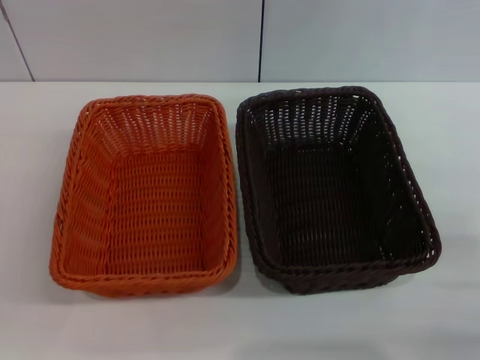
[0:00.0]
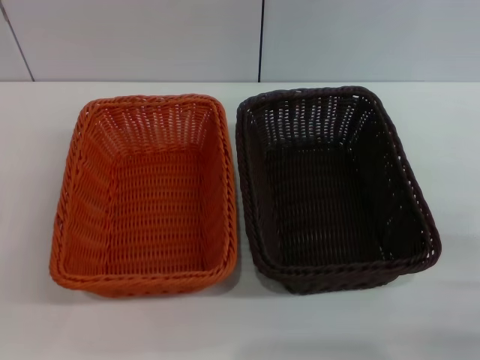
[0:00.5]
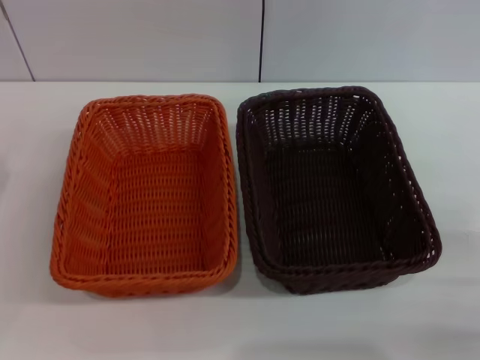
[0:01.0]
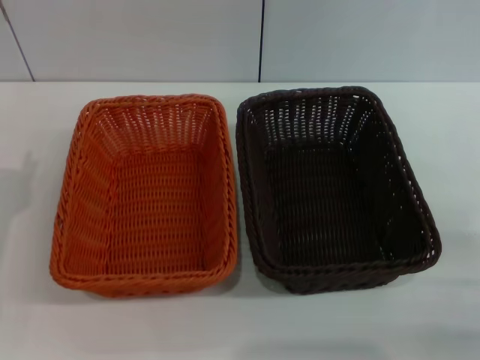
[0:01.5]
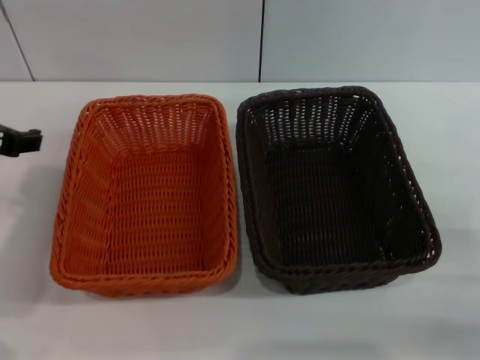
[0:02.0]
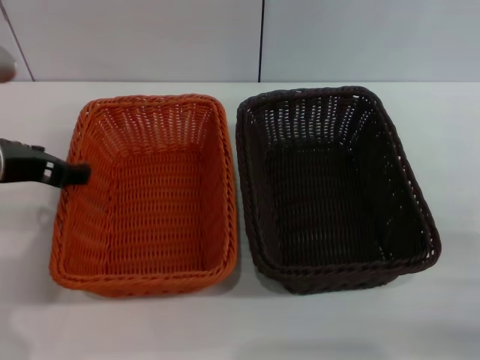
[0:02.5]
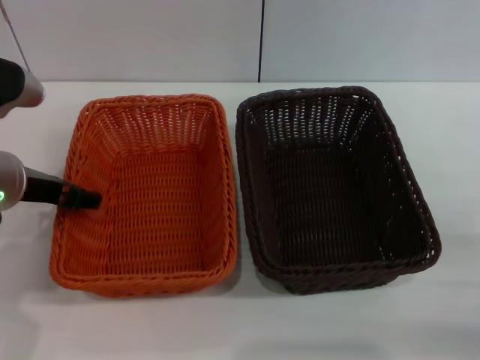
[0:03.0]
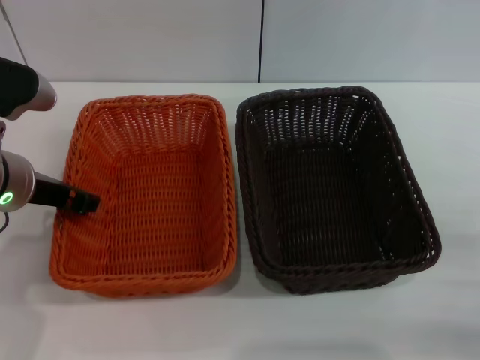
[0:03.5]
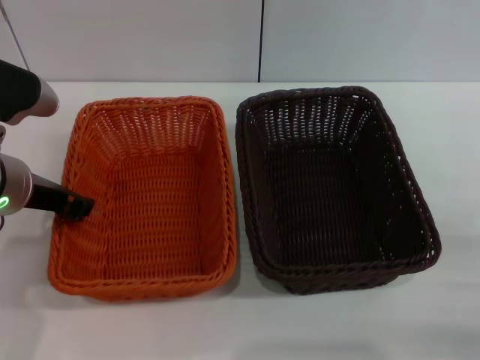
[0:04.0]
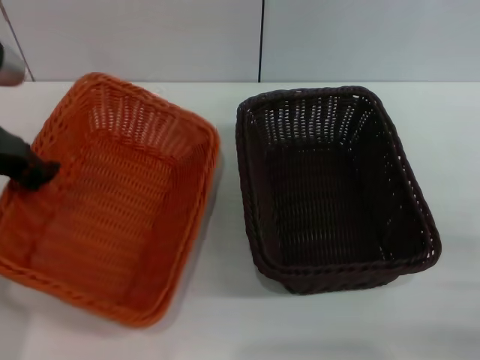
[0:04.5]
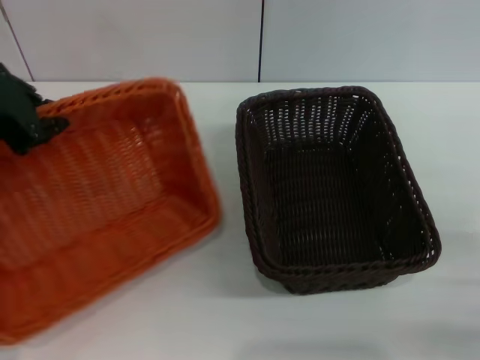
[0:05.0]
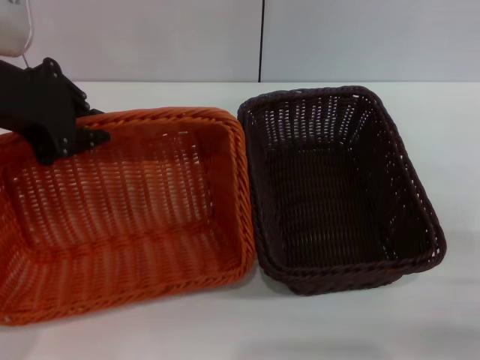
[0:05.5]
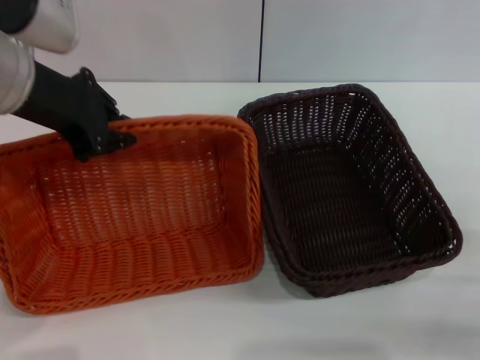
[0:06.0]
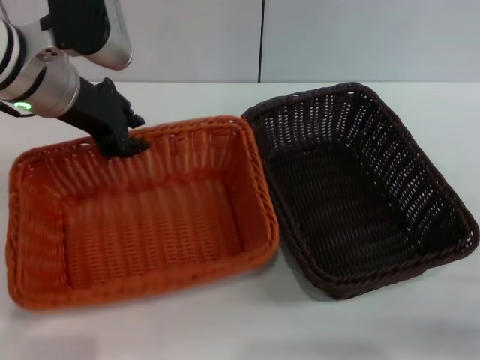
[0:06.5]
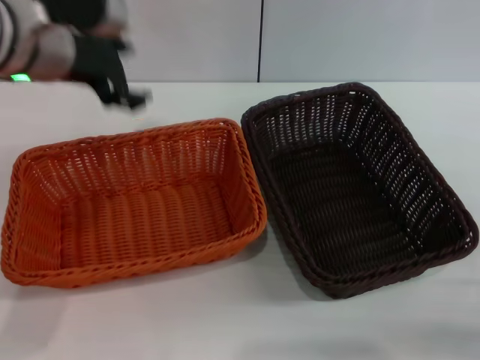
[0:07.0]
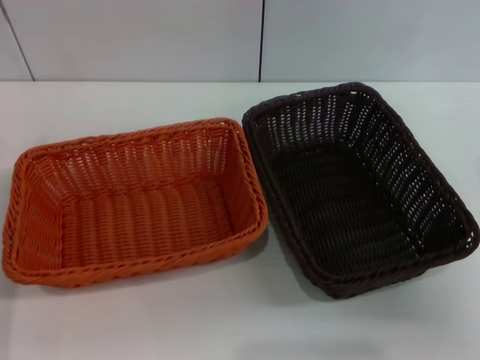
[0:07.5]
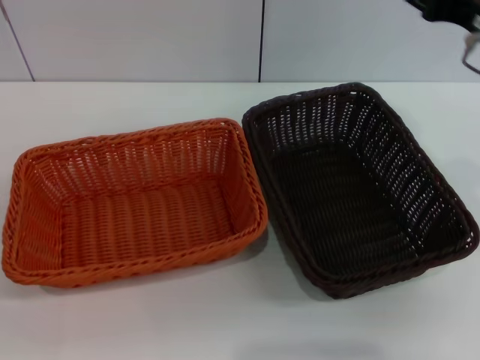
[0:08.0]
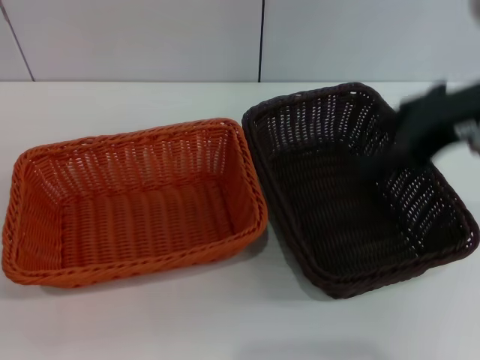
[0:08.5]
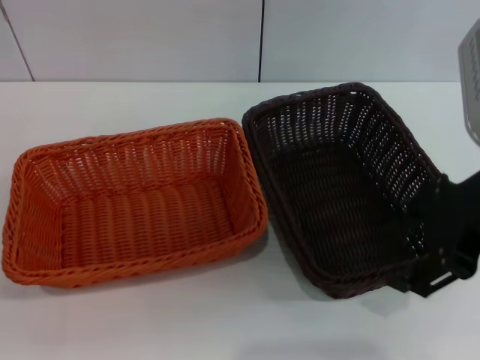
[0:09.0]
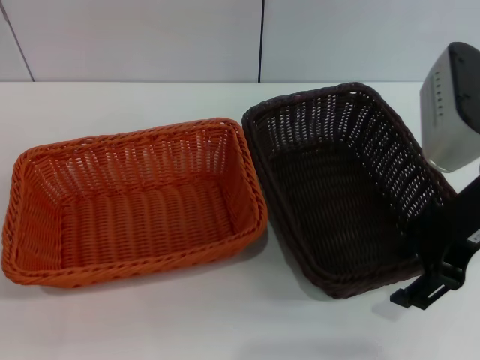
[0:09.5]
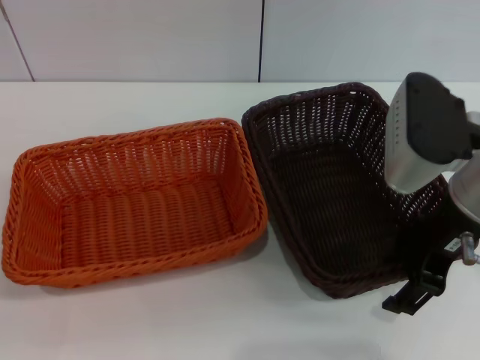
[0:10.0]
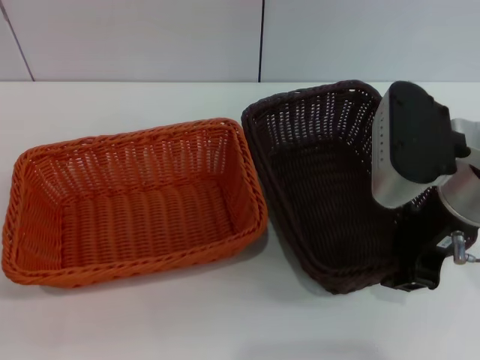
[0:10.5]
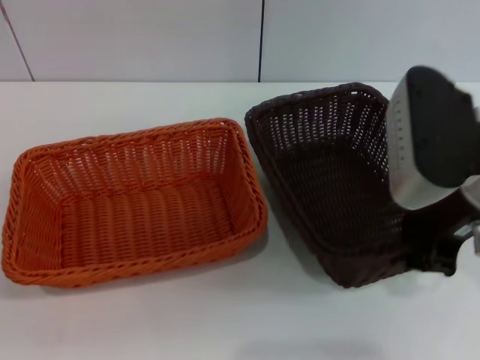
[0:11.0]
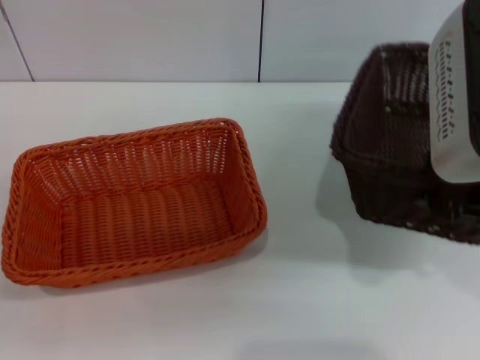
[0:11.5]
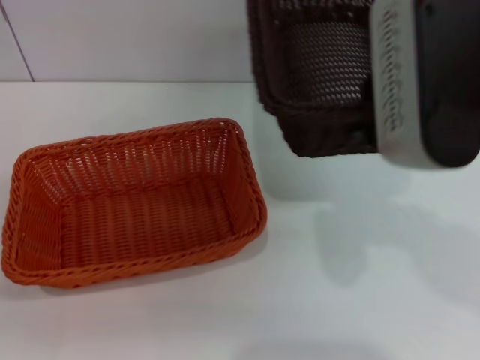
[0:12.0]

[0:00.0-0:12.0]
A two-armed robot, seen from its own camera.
Step, 0:00.0 to 0:04.0: Pick up the light basket with the left gripper.
Step, 0:04.5 to 0:06.5: Place the light basket in the center of view with the left gripper.
Step, 0:07.0 to 0:10.5: Pick up the dark basket with the right gripper.
0:00.0 to 0:02.0: The left gripper heads upward, forward and to the right, covering approximately 20 cm.
0:02.0 to 0:04.0: The left gripper is displaced downward by approximately 5 cm, and closes its fingers.
0:04.0 to 0:06.0: The left gripper shifts about 10 cm upward.
0:06.0 to 0:08.0: The right gripper heads upward, forward and to the left, covering roughly 25 cm. The left gripper moves downward, backward and to the left, about 30 cm, and opens.
0:08.0 to 0:10.0: The right gripper moves some 5 cm.
0:10.0 to 0:12.0: The right gripper moves upward, roughly 10 cm, and closes its fingers.

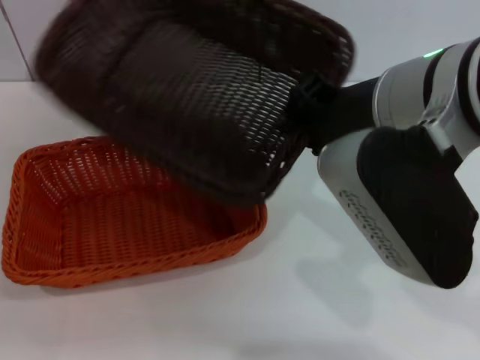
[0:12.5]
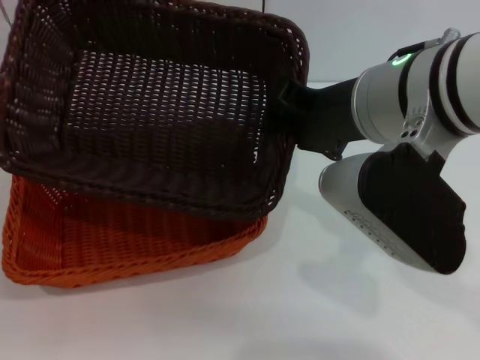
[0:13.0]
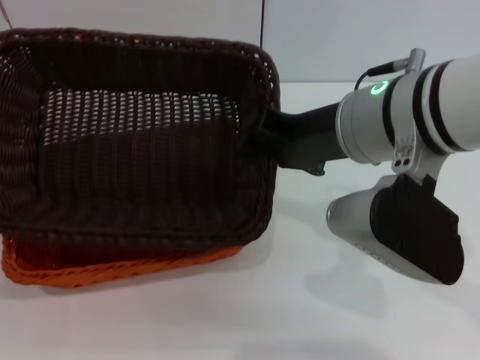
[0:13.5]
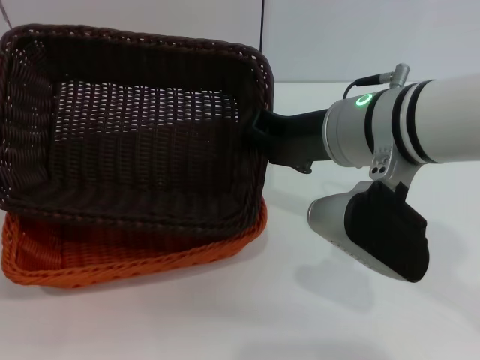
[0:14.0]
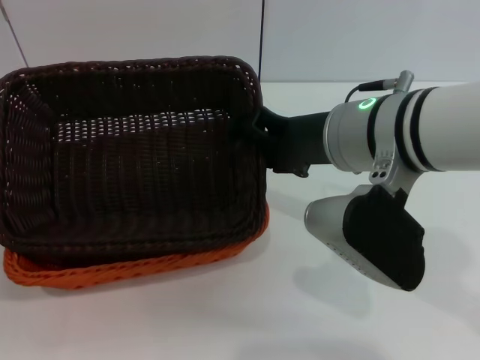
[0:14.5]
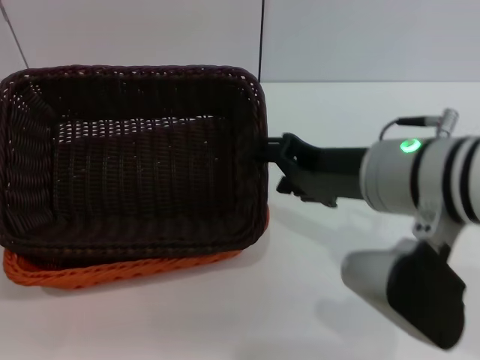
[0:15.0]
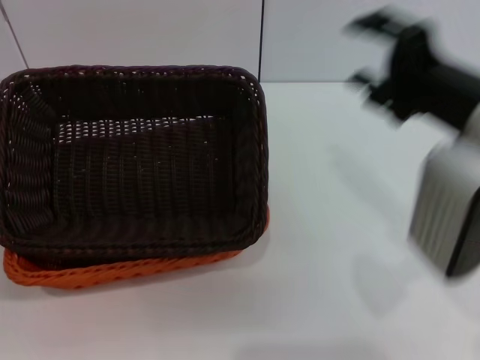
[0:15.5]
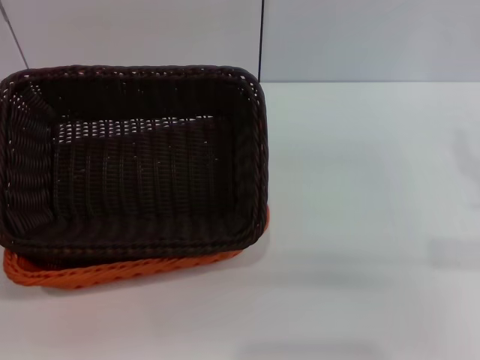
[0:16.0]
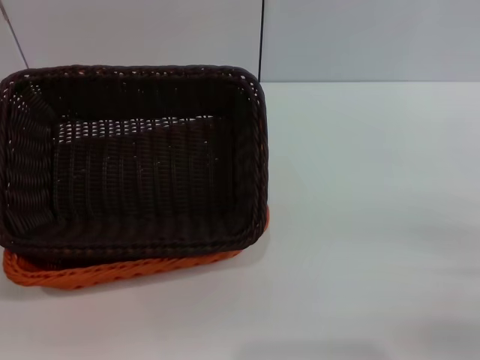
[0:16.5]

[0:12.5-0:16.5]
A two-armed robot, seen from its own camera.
Step, 0:12.5 to 0:14.5: Place the dark basket on the light basket with the right gripper.
0:12.5 to 0:14.5: The right gripper travels downward by about 5 cm, and opens up.
0:14.5 to 0:16.5: The right gripper shifts roughly 30 cm to the right, downward and backward.
